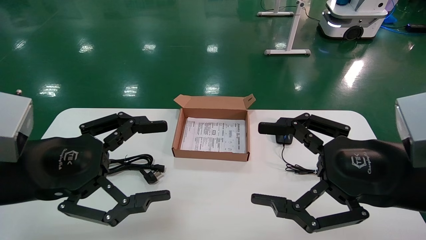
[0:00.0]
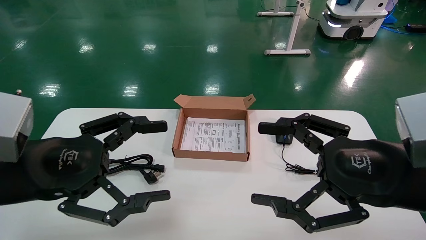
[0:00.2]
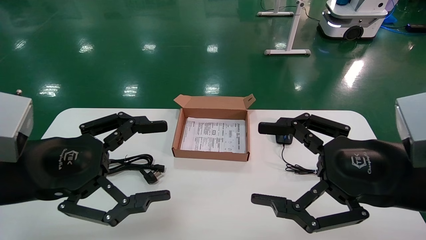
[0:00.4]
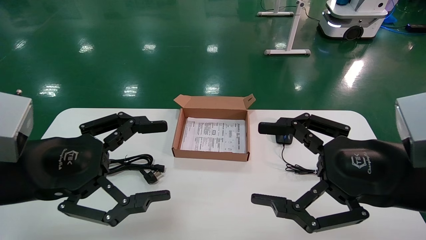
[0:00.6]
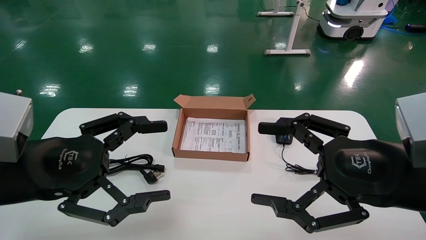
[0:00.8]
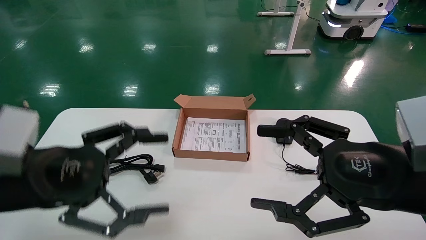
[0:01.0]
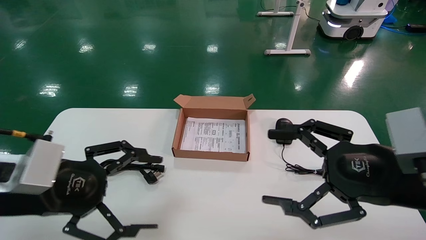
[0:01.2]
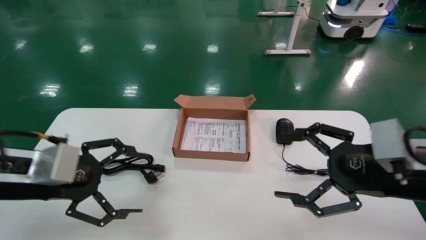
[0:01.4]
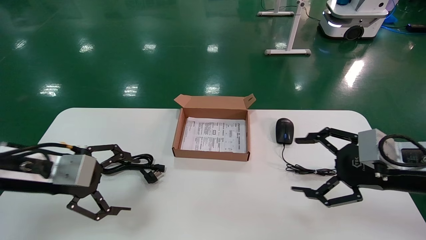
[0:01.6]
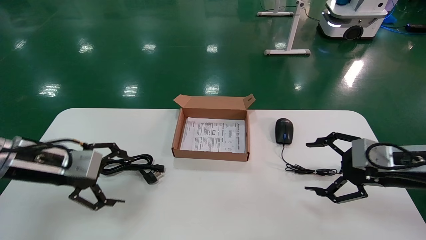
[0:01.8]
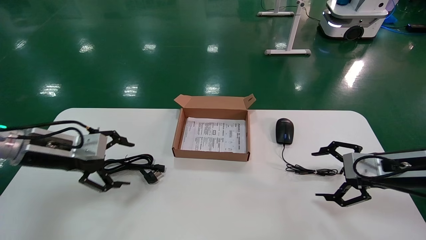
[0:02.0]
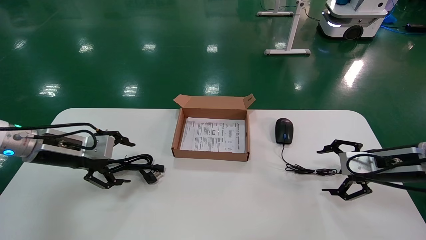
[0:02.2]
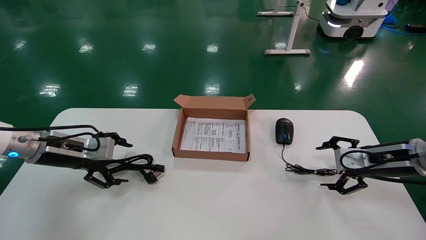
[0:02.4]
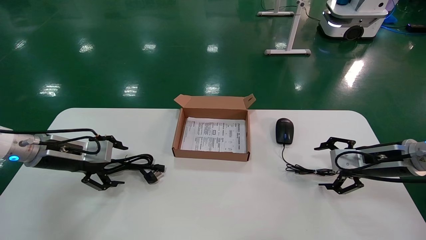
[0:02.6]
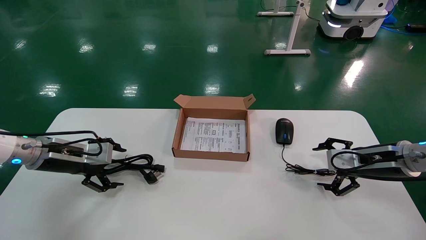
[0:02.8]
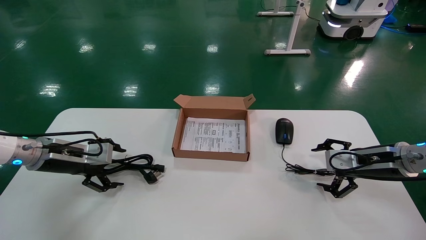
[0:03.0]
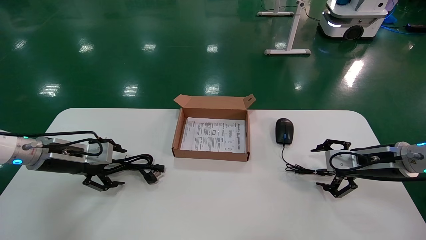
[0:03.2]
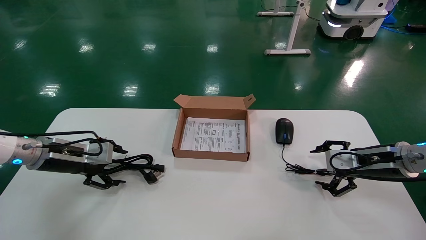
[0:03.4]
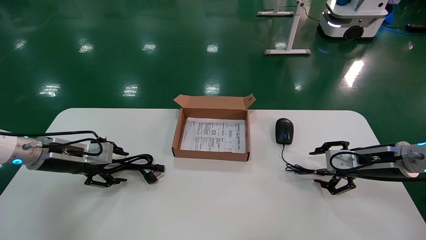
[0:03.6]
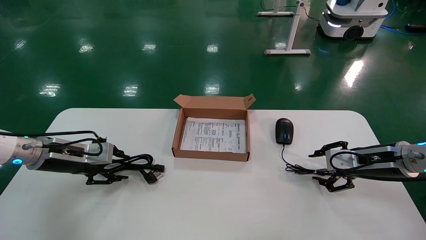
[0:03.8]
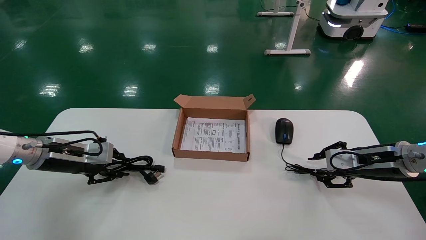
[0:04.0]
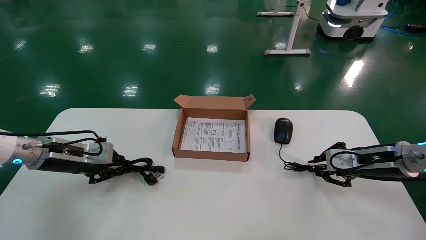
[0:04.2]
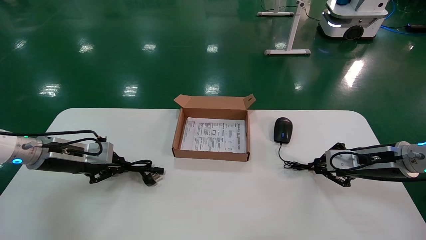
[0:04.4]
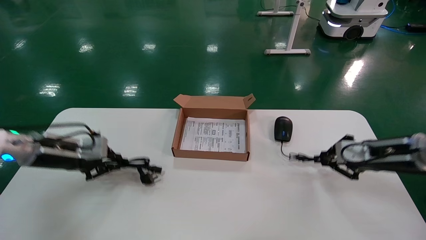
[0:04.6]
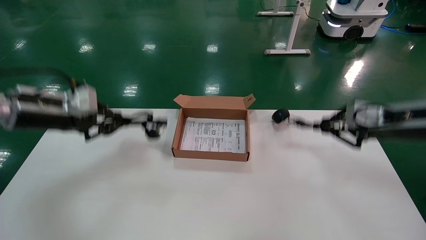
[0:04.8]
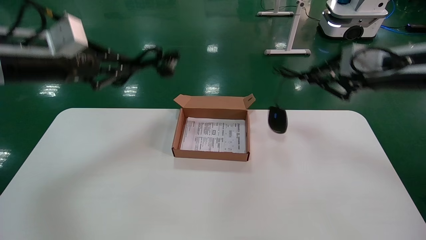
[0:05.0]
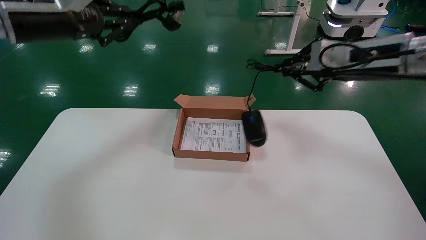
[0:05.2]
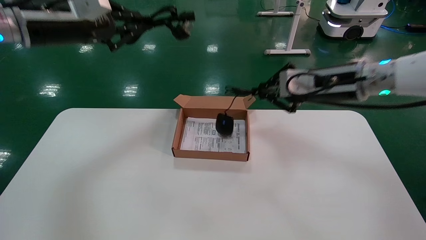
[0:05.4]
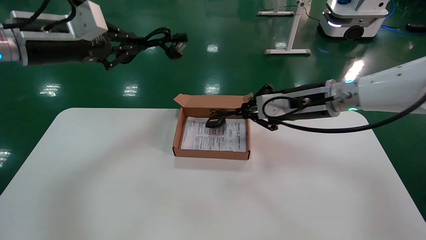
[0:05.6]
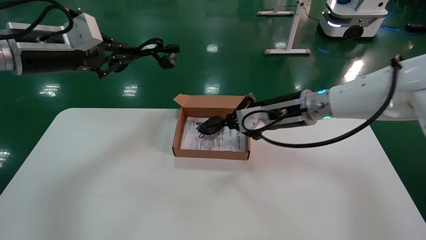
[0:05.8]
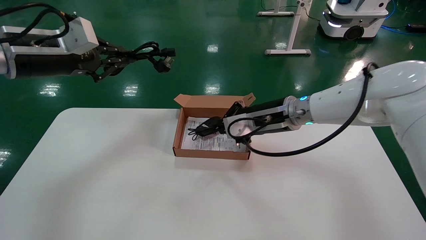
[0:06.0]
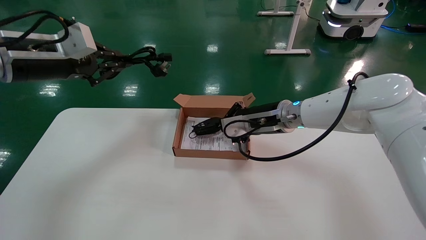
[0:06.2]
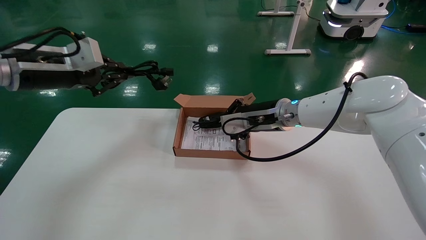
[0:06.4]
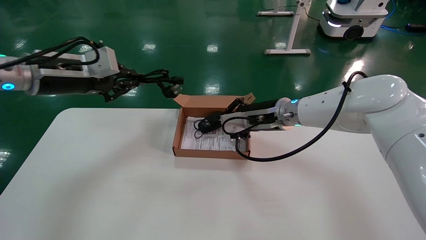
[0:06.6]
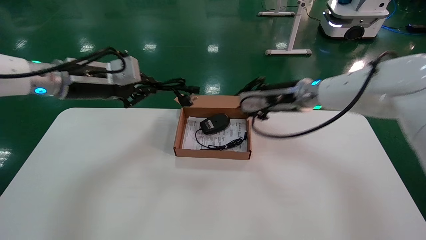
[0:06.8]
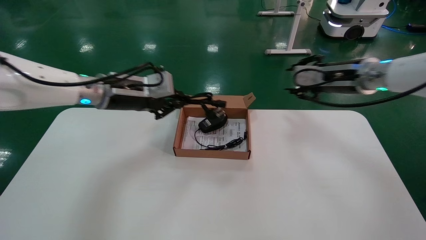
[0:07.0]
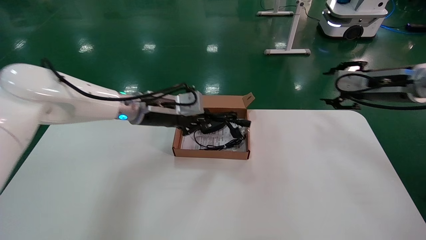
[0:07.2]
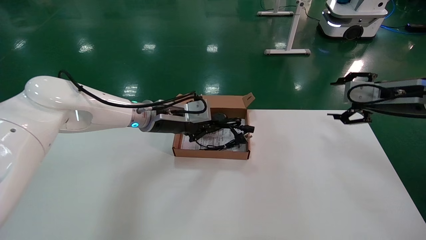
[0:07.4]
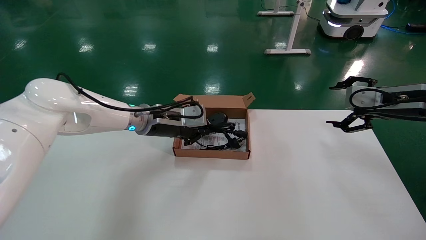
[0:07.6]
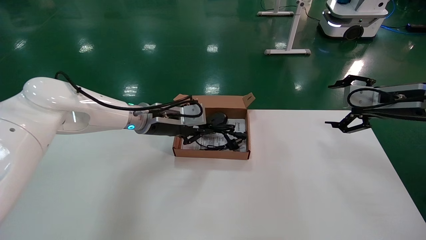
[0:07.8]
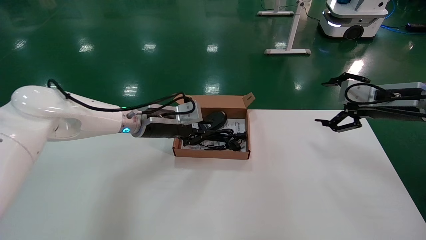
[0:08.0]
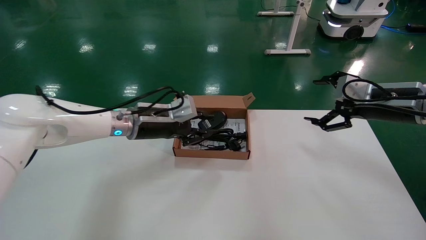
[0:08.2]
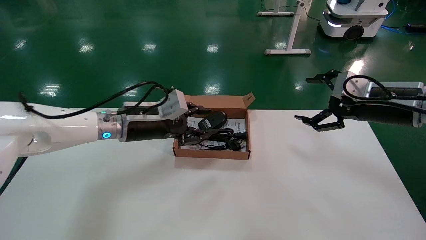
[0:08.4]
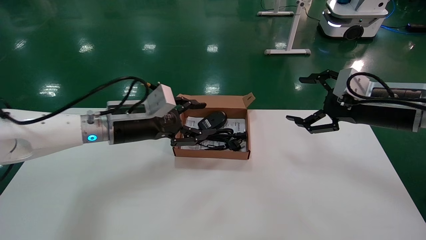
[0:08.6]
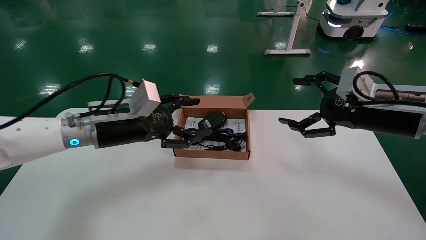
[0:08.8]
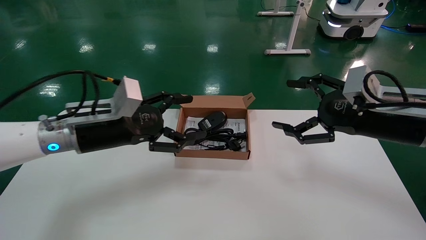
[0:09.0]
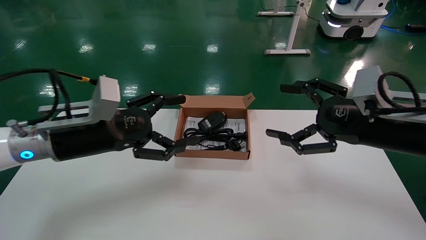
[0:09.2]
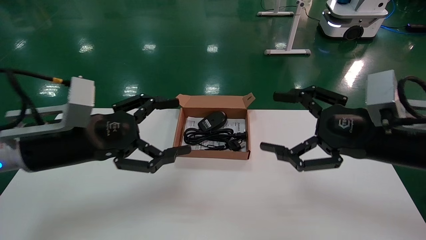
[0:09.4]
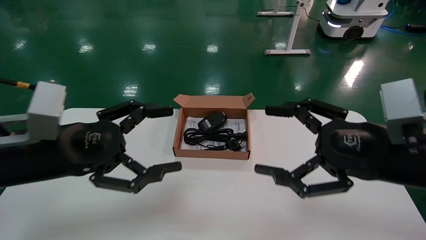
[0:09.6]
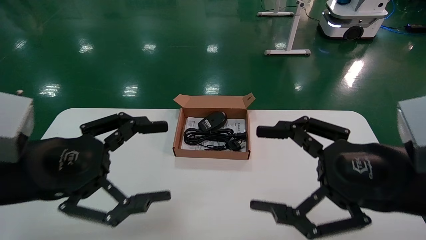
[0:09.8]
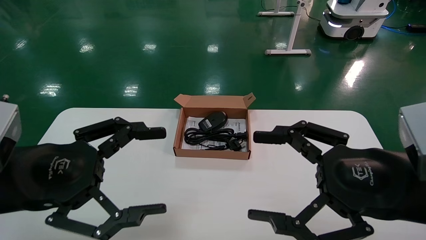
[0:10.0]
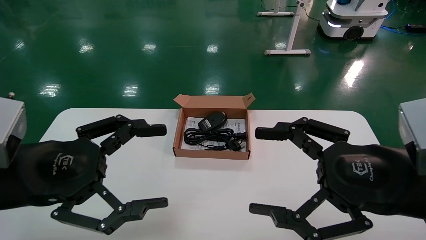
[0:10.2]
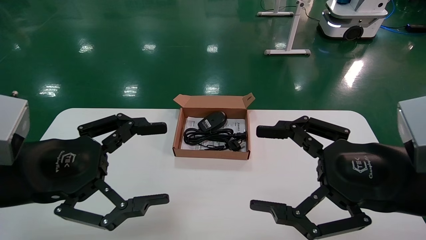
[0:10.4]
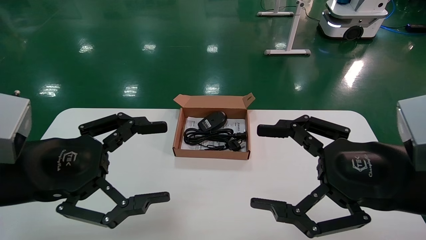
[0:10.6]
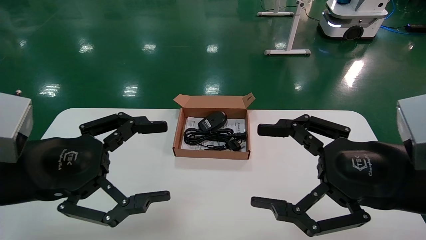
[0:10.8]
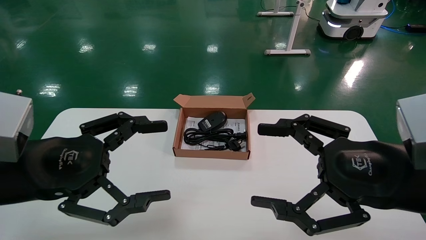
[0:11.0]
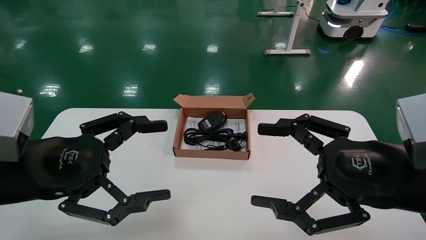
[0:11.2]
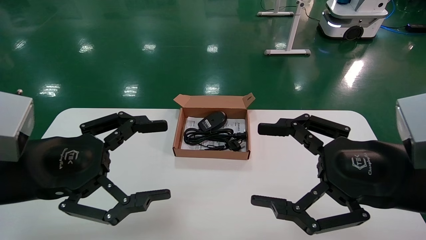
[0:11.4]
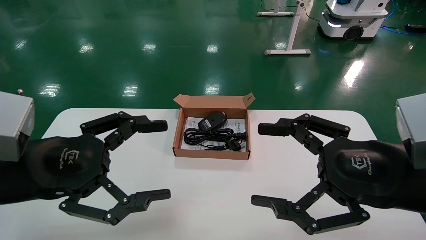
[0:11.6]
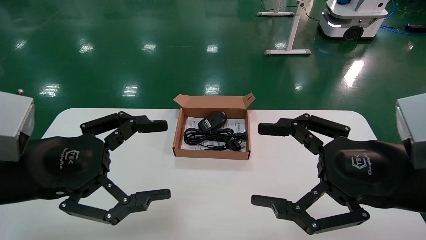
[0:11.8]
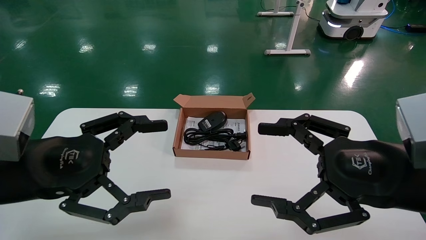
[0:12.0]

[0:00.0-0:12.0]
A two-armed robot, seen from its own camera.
Step, 0:01.2 to 0:04.2: Grab and lift both the mouse and power cord from the accessory packaging area at the same time.
Step, 0:04.4 to 0:08.0: Place the mouse and power cord into the box.
0:00.0 to 0:01.6: The left gripper travels forward and to the left by about 10 cm; the right gripper moves forward and to the right, some 10 cm.
0:01.6 to 0:03.0: The right gripper travels forward and downward by some 15 cm. Meanwhile the left gripper goes roughly 15 cm forward, downward and to the left.
0:03.0 to 0:04.4: The left gripper closes its fingers. The right gripper closes its fingers.
0:04.4 to 0:06.0: The left gripper moves upward, some 20 cm. Meanwhile the right gripper moves to the left, roughly 25 cm.
0:06.0 to 0:07.6: The left gripper goes roughly 25 cm to the right, downward and forward. Meanwhile the right gripper heads to the right, covering roughly 25 cm, and opens.
0:07.6 to 0:09.0: The two grippers go roughly 15 cm backward and to the left. The left gripper opens up.
0:09.0 to 0:10.4: The two grippers go about 15 cm backward.
0:10.4 to 0:12.0: The two grippers keep their place.

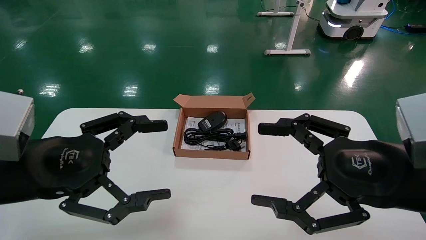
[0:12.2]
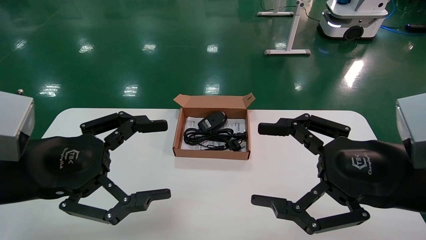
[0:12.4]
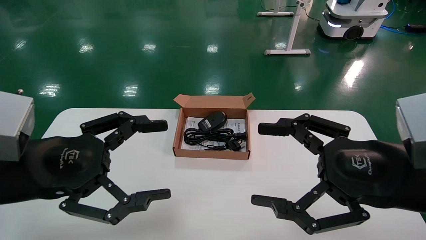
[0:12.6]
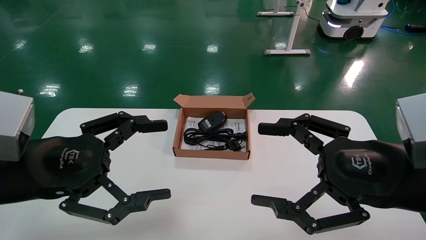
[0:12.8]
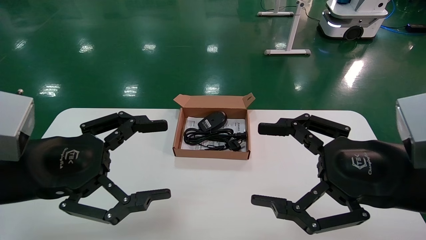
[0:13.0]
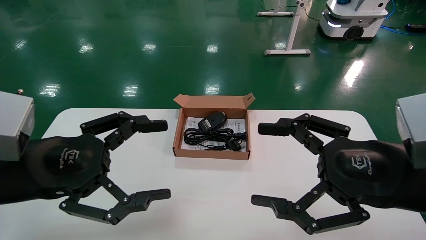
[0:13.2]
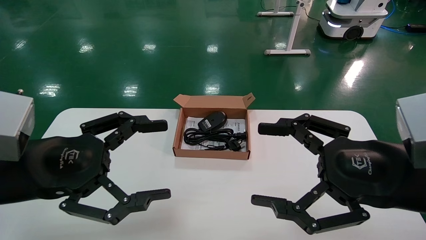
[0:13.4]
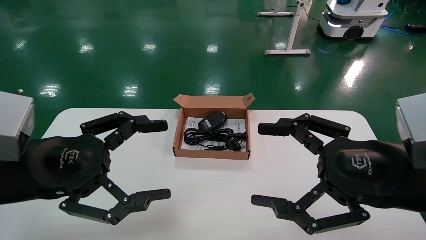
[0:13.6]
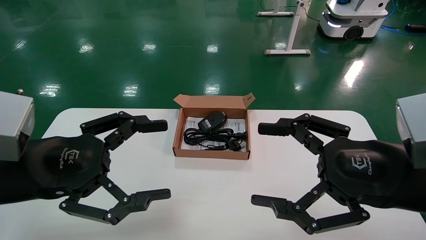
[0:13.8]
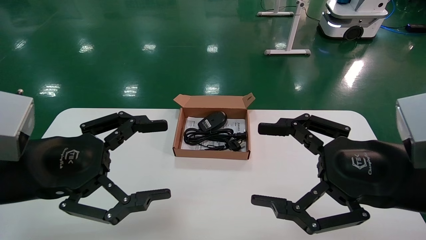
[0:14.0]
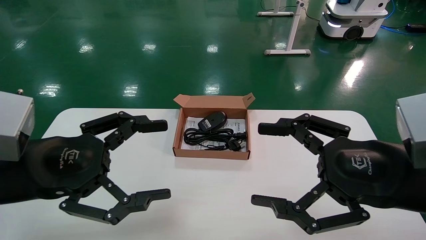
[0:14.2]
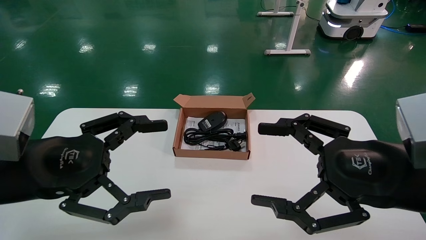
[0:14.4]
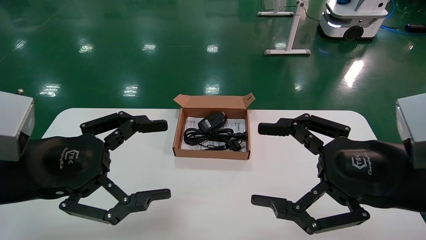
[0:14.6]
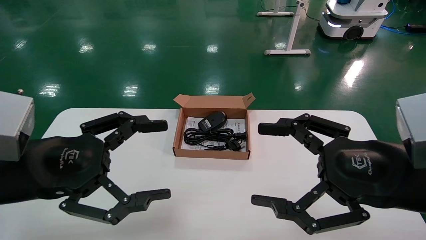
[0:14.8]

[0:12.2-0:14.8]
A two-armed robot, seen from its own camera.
0:12.2 to 0:14.8: The two grippers keep their place.
